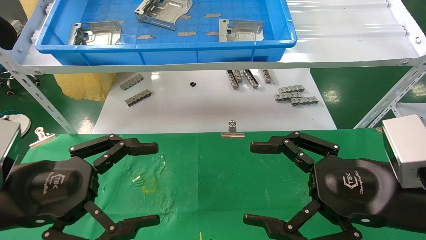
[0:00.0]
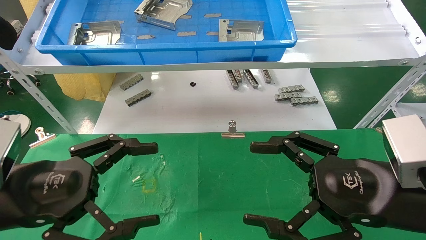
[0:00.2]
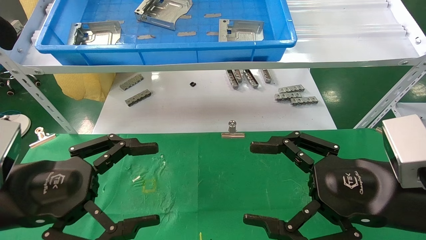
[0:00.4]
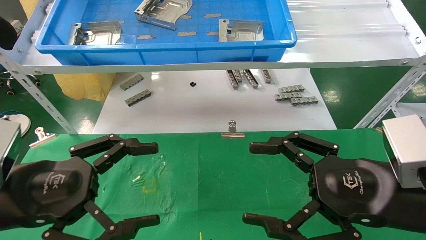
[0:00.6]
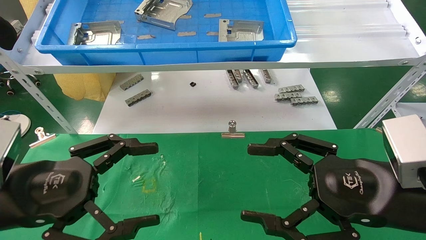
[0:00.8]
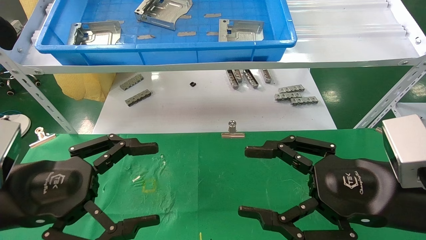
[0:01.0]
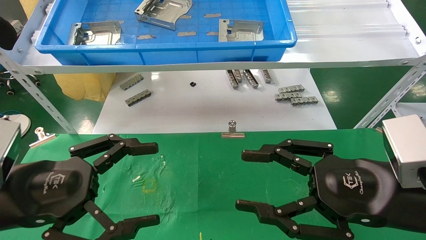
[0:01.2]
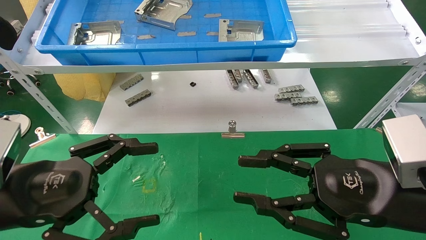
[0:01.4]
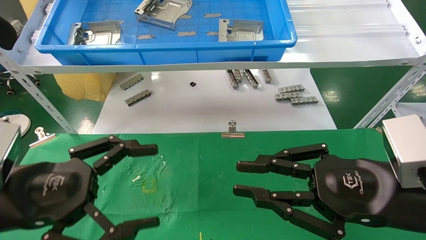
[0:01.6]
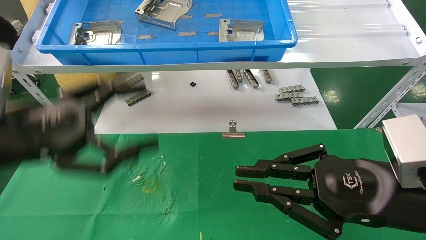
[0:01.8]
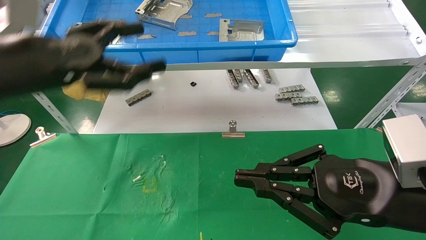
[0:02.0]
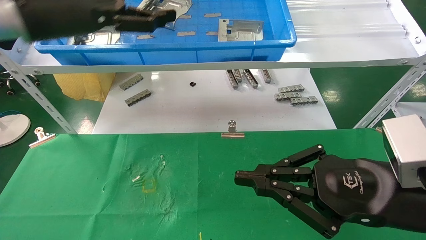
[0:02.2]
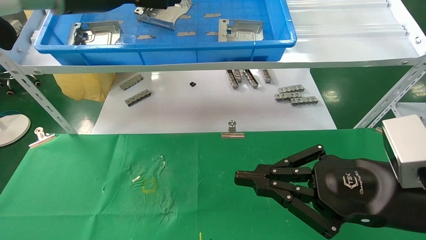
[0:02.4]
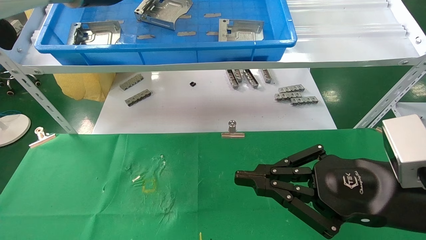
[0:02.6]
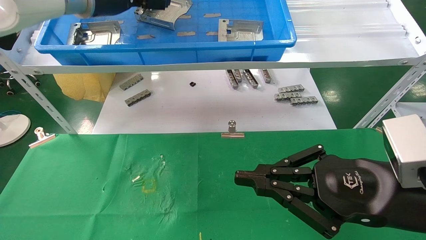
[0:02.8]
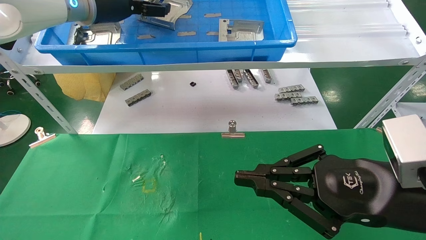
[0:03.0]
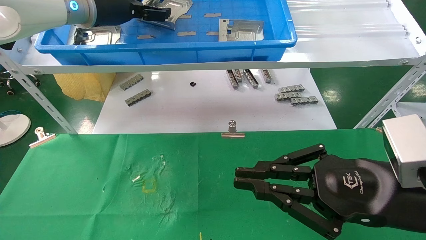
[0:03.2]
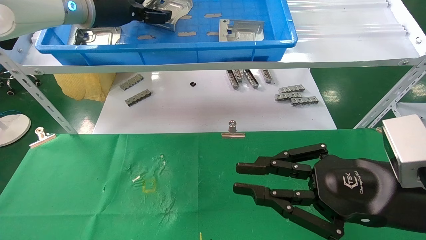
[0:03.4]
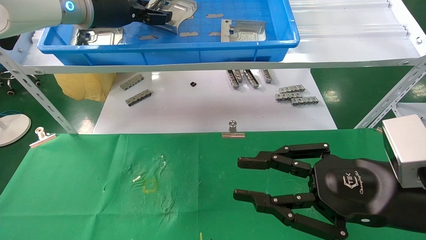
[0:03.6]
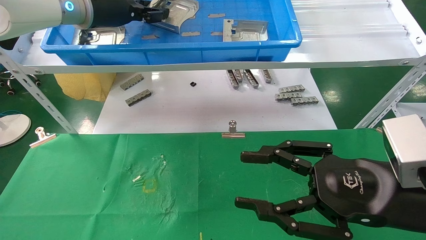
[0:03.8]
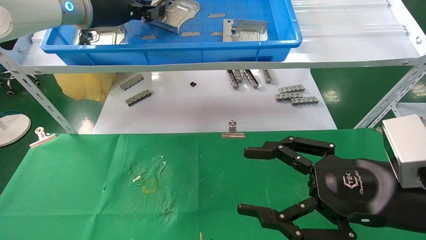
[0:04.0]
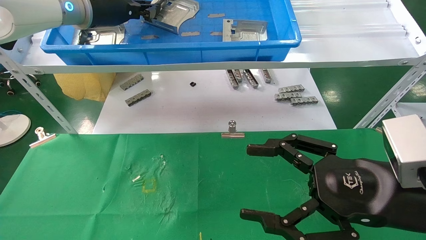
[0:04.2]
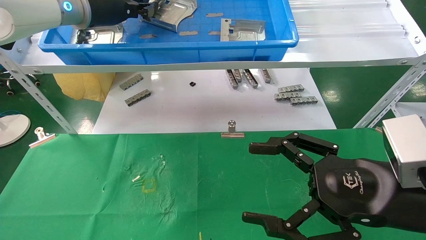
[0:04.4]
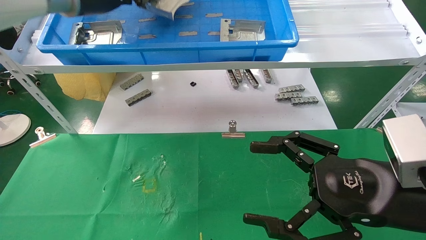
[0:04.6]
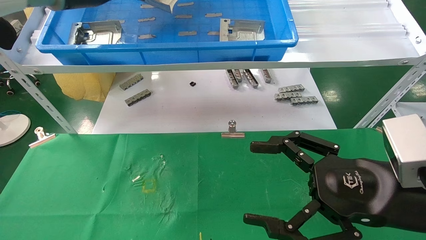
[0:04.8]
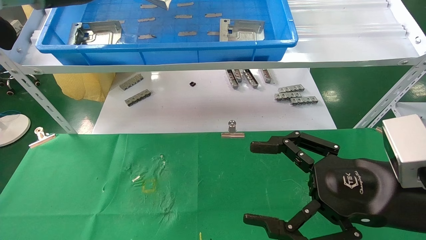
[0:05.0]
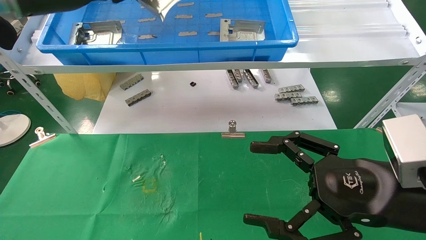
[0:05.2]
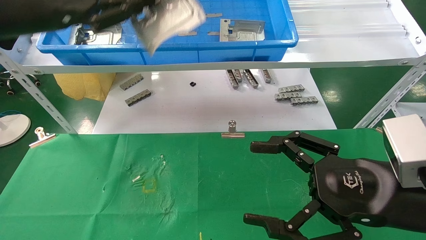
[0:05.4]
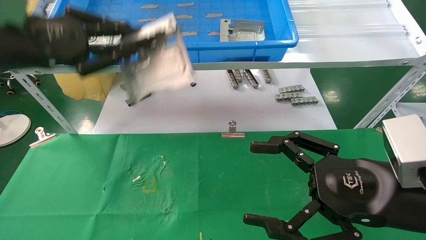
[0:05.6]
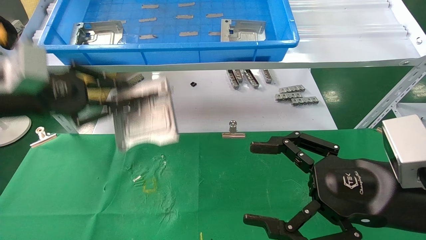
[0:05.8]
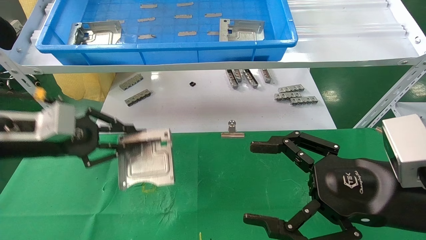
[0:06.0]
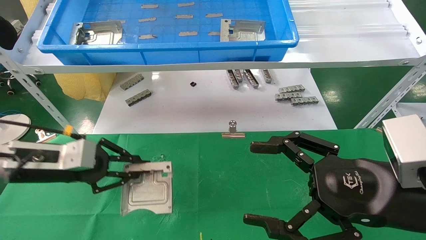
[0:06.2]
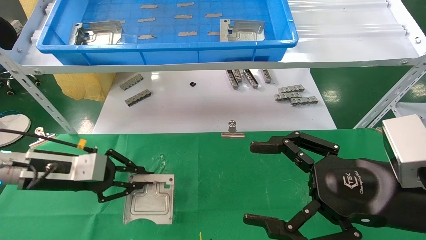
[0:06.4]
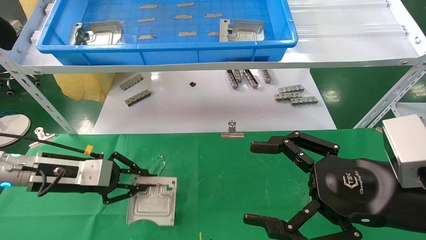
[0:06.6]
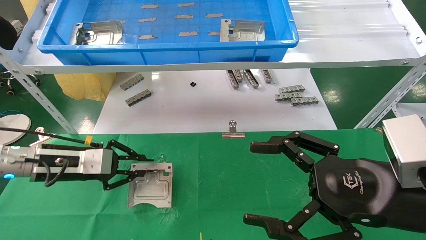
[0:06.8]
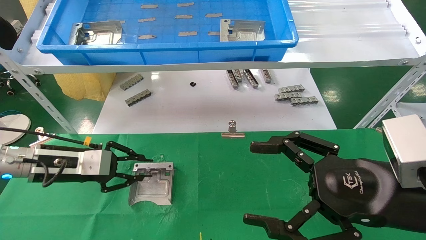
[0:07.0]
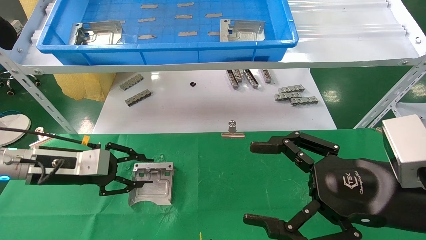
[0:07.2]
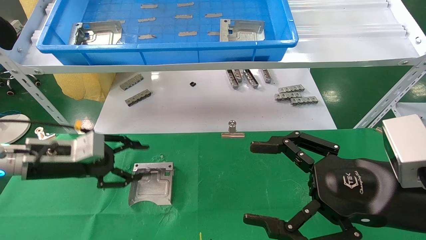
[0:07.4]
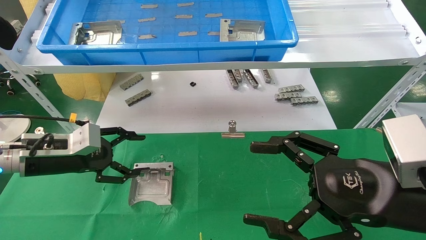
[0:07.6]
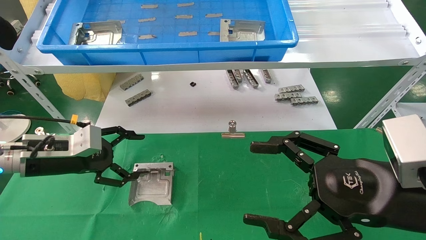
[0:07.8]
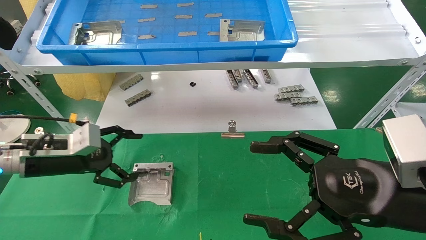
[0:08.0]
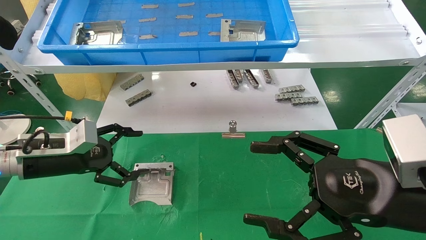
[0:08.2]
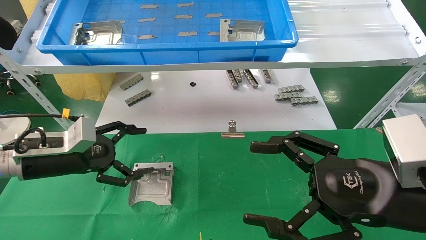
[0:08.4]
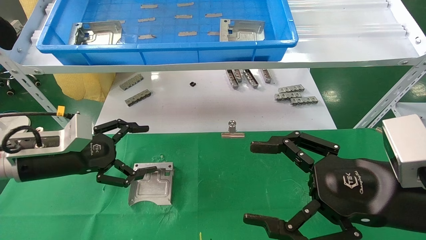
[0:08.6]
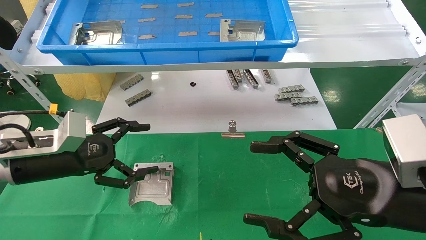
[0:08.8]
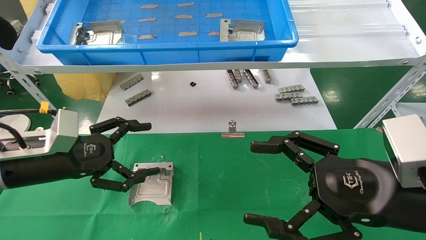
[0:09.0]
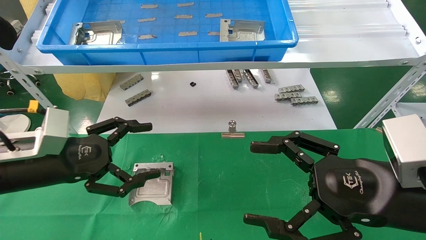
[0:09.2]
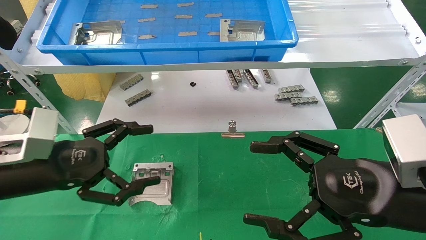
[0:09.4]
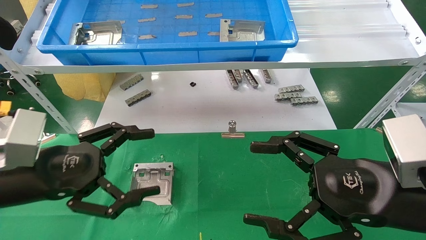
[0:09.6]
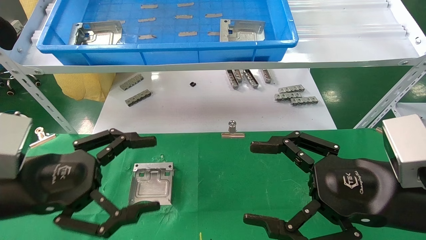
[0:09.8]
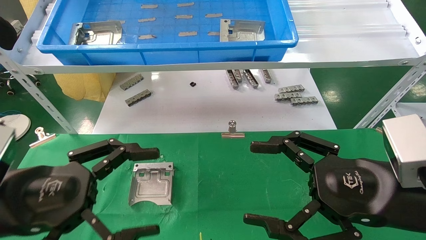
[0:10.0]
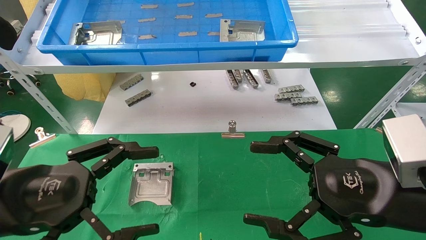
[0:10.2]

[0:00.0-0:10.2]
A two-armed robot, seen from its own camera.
Task of the whole recording: use the mechanical arm to pick up the parts and place them on the table.
Step, 0:02.0 to 0:04.0: Pick up the hard drive bracket from the feeding area.
Step, 0:04.2 to 0:07.4: Place the hard drive bracket into the box.
0:00.0 to 0:01.4: The right gripper closes up.
0:01.4 to 0:03.0: The left gripper moves forward and upward, approximately 35 cm, while the right gripper closes its fingers.
0:03.0 to 0:04.4: The right gripper opens. The left gripper closes up.
0:04.4 to 0:05.8: The left gripper moves downward, backward and to the left, about 20 cm.
0:05.8 to 0:07.2: The left gripper travels downward by approximately 15 cm.
0:07.2 to 0:08.8: The left gripper shifts by some 5 cm, and opens up.
0:08.8 to 0:10.2: The left gripper travels backward by about 15 cm.

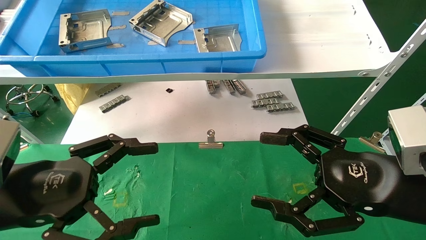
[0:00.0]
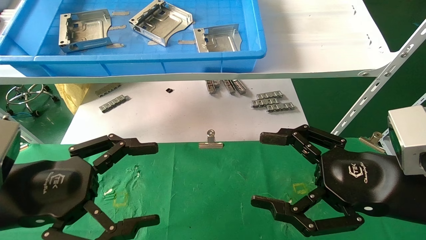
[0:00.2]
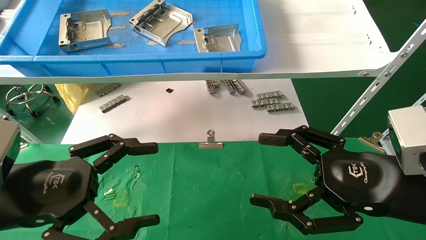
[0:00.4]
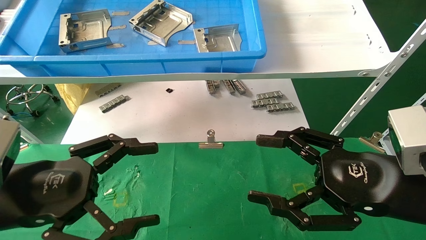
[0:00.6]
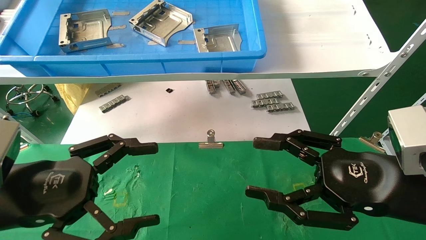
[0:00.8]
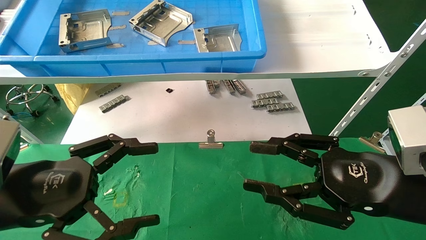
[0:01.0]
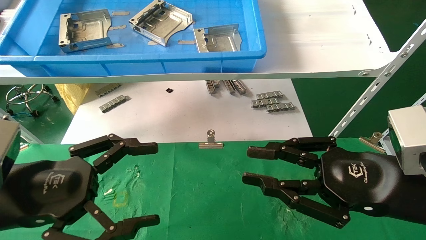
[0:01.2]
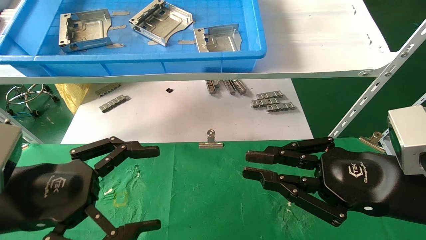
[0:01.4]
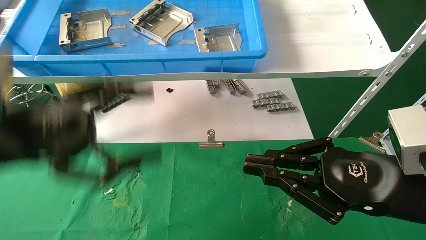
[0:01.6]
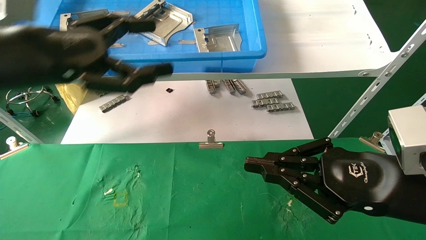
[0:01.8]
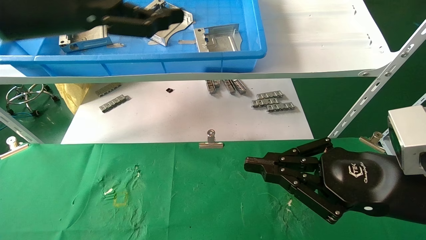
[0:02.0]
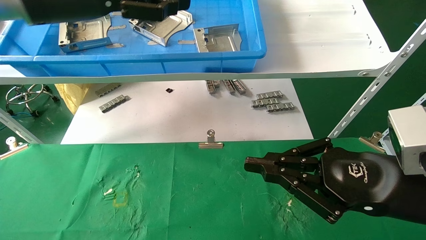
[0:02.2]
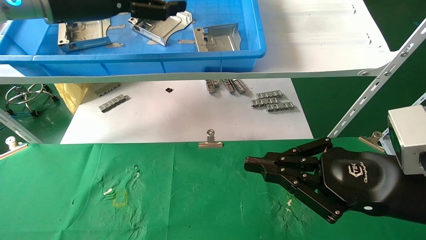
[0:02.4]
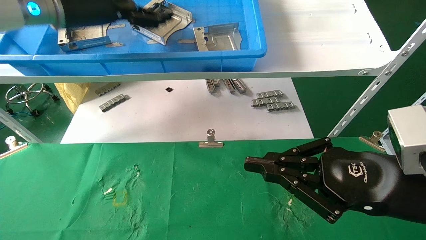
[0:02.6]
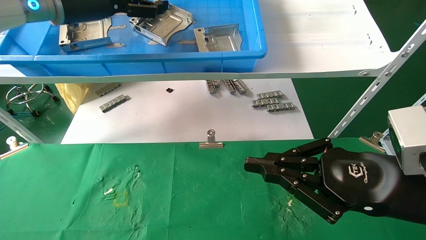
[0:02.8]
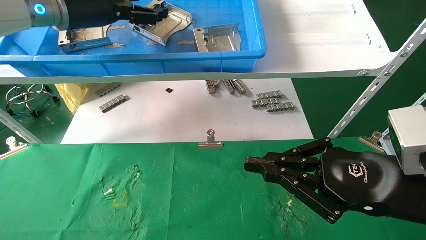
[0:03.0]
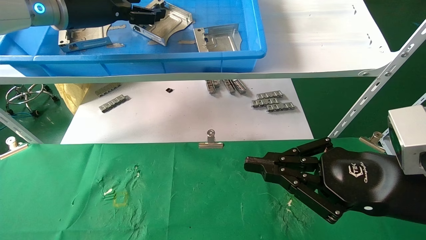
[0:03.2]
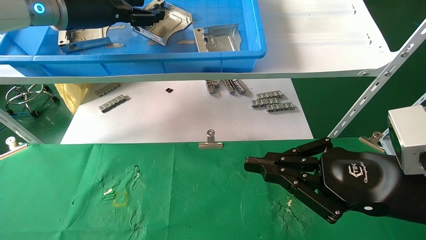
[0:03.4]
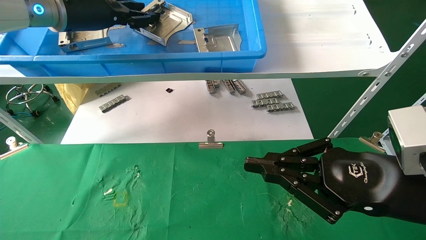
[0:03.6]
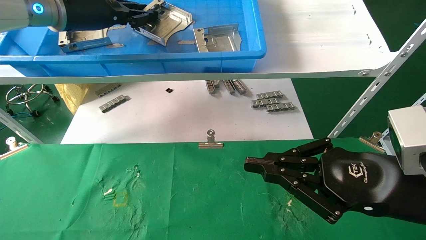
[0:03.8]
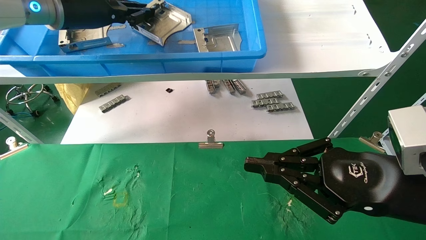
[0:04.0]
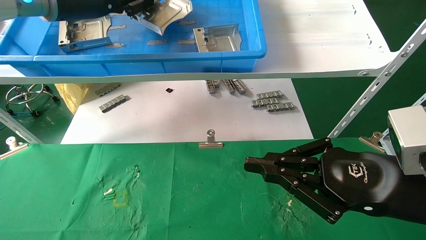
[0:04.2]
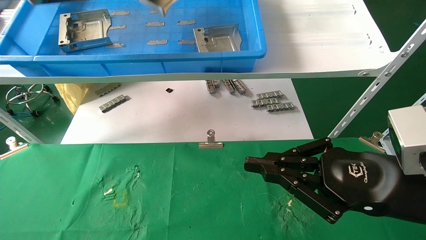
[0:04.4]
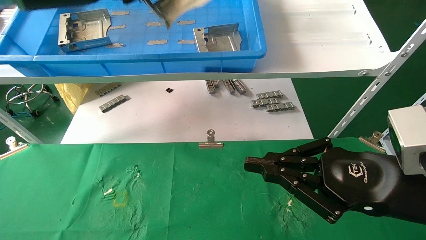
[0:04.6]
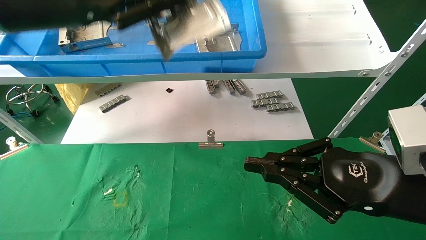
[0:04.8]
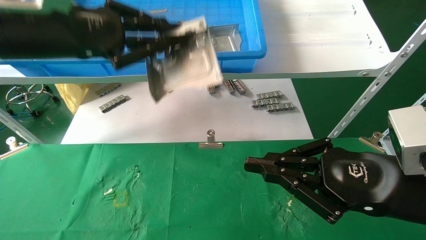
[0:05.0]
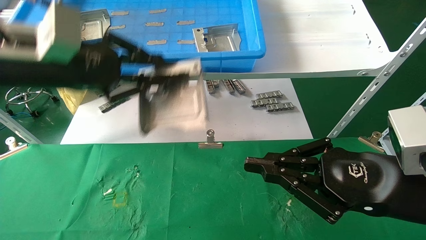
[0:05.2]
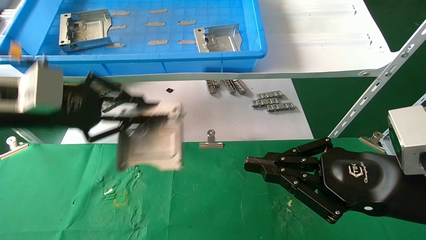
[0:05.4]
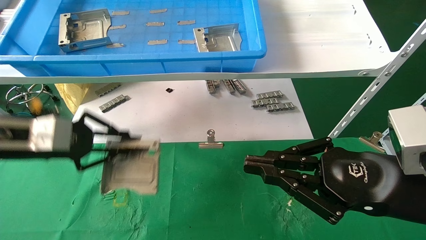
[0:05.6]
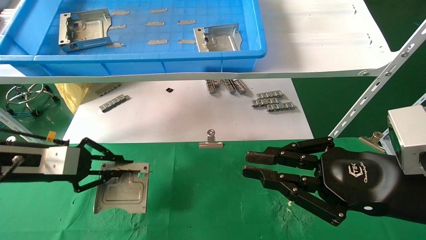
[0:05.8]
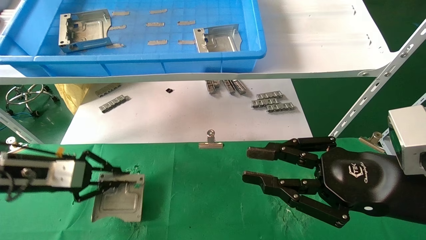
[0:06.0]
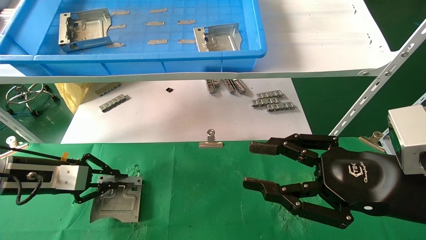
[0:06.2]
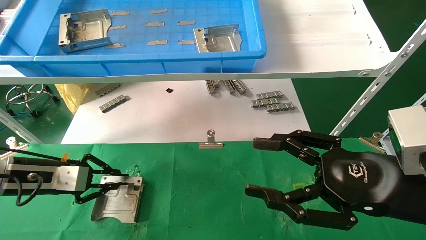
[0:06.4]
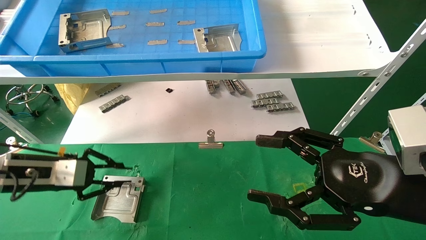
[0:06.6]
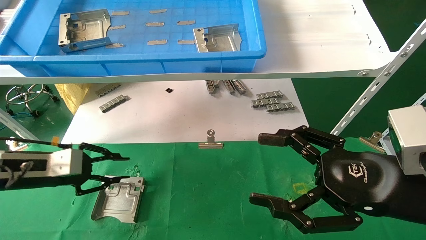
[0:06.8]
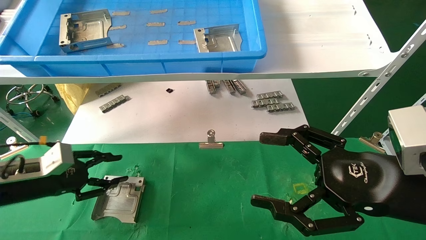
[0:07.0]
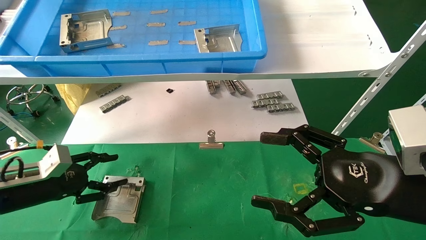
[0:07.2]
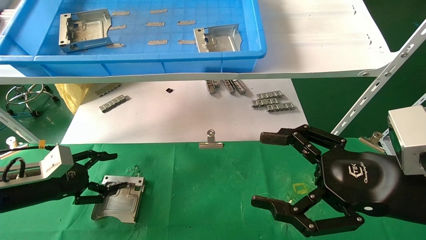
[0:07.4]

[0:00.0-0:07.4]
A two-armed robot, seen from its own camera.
Task of the whole recording: use the mechanical arm to pick up the parts and place them on the table.
Step, 0:01.6 to 0:04.4: Pick up the hard drive bracket from the feeding area.
0:00.0 to 0:01.4: The right gripper closes up.
0:01.4 to 0:03.0: The left gripper travels forward and upward by approximately 30 cm.
0:03.0 to 0:04.4: The left gripper closes.
0:04.4 to 0:06.0: The left gripper travels downward by about 30 cm.
0:06.0 to 0:07.4: The right gripper opens. The left gripper is displaced downward by roughly 5 cm, and opens up.
